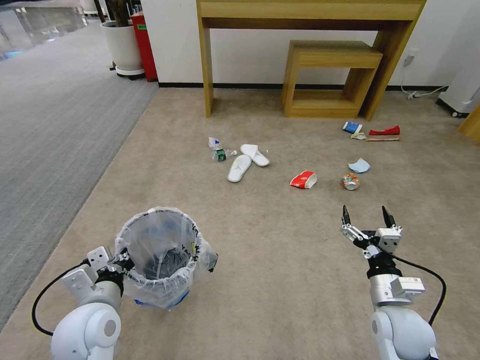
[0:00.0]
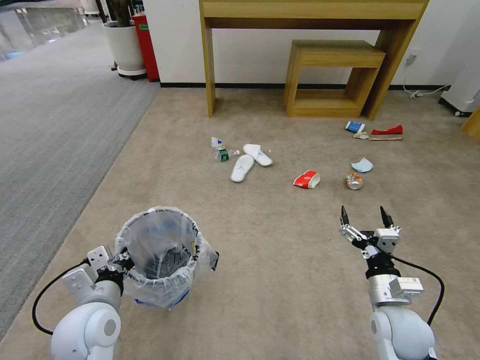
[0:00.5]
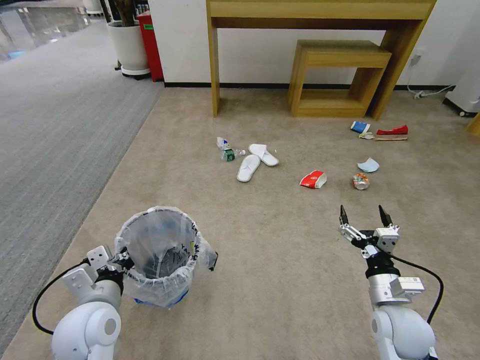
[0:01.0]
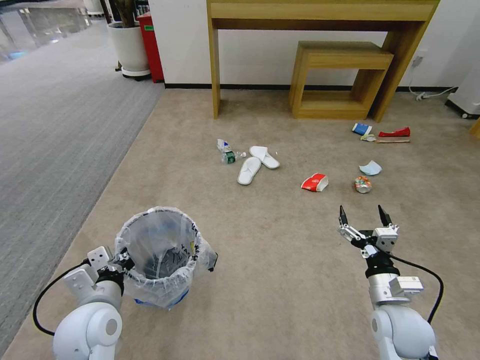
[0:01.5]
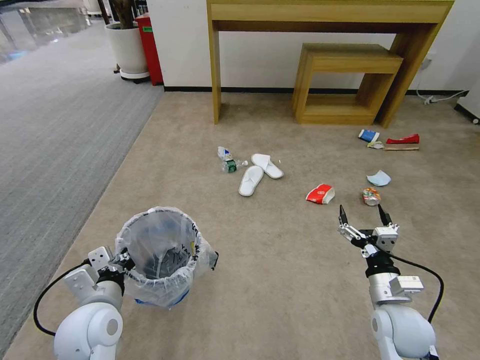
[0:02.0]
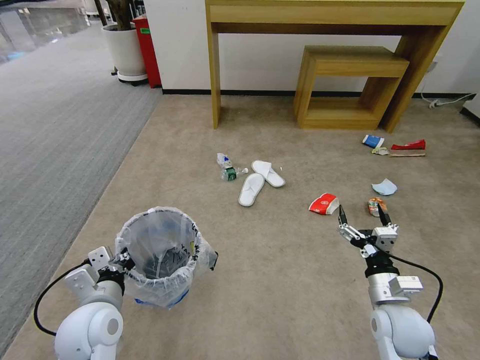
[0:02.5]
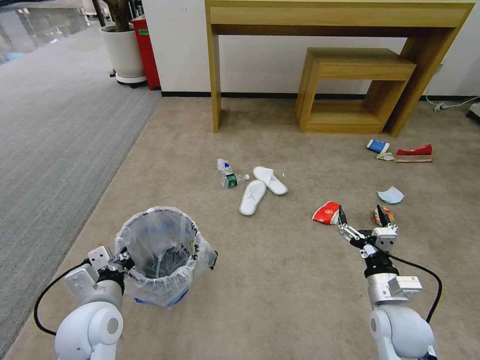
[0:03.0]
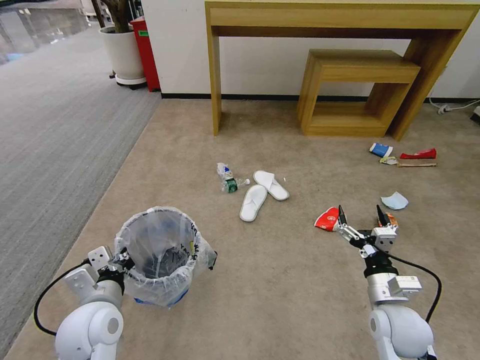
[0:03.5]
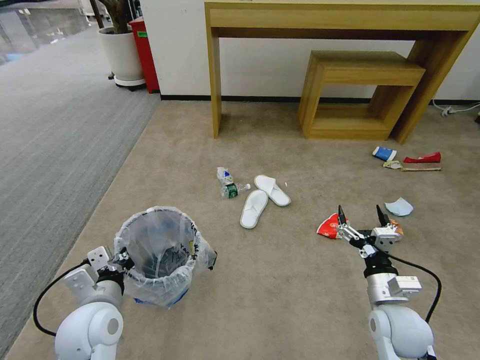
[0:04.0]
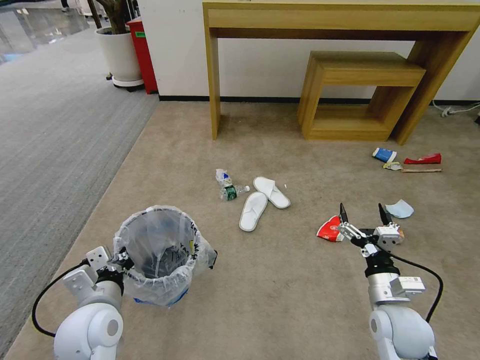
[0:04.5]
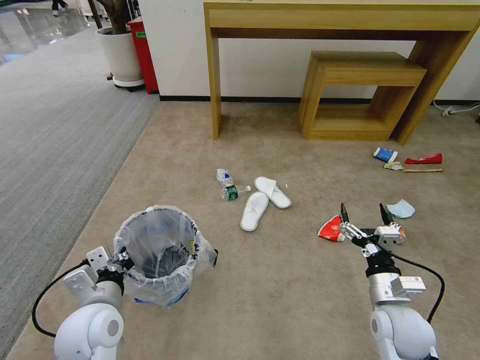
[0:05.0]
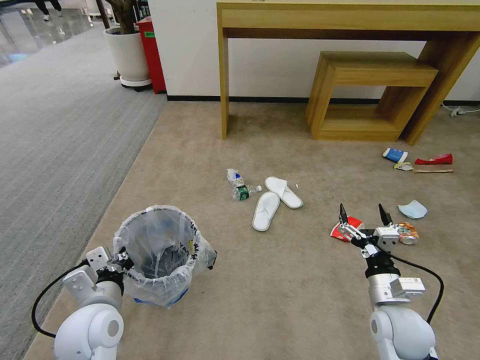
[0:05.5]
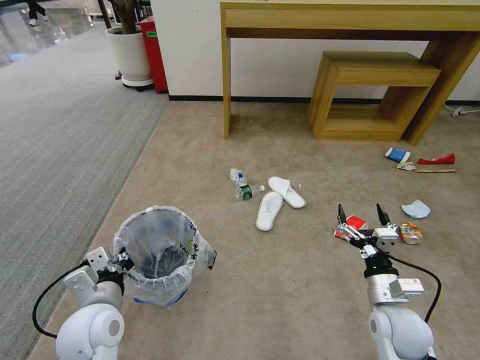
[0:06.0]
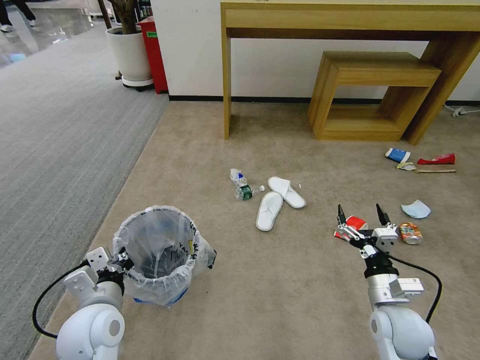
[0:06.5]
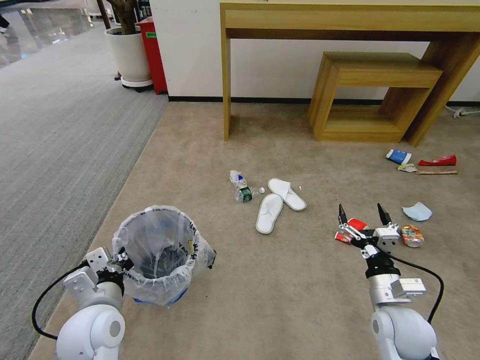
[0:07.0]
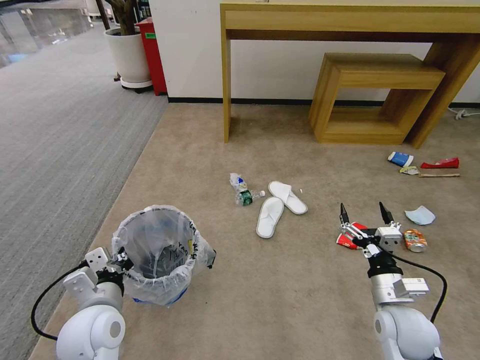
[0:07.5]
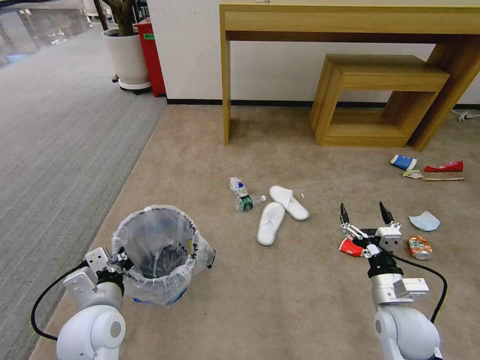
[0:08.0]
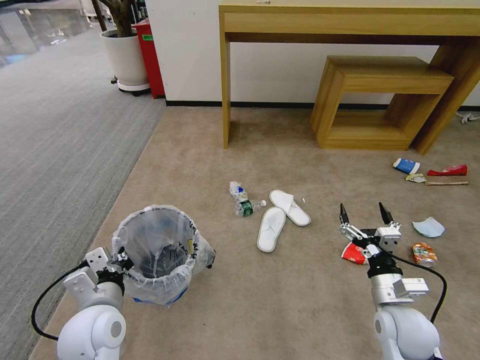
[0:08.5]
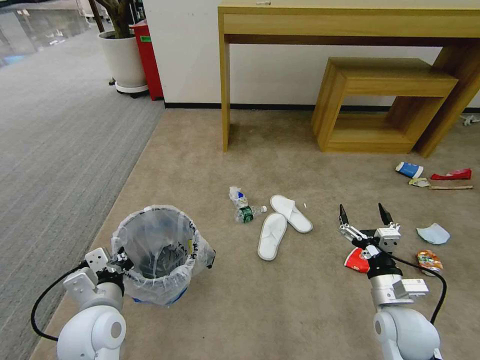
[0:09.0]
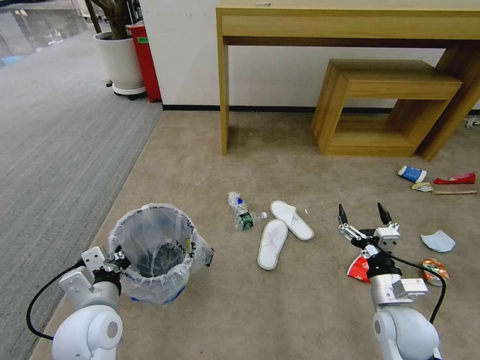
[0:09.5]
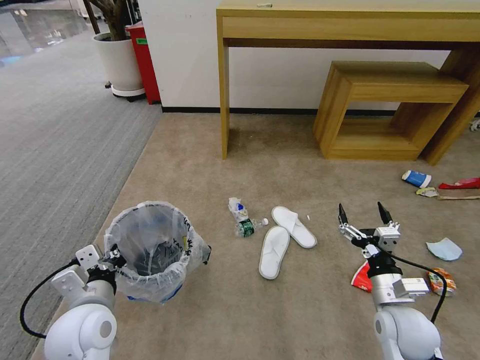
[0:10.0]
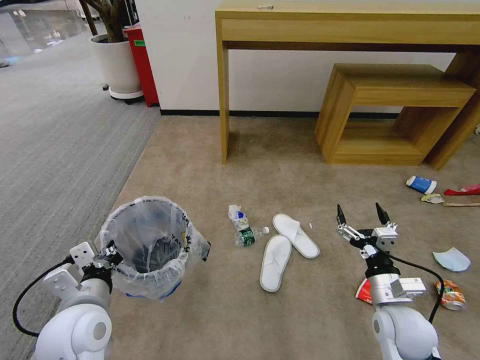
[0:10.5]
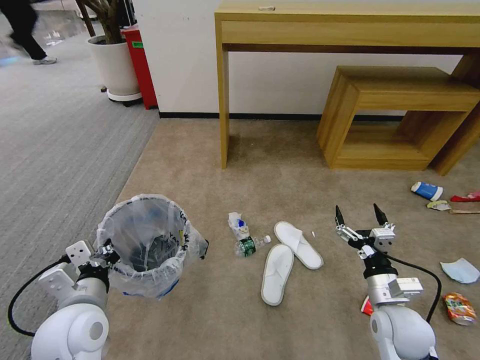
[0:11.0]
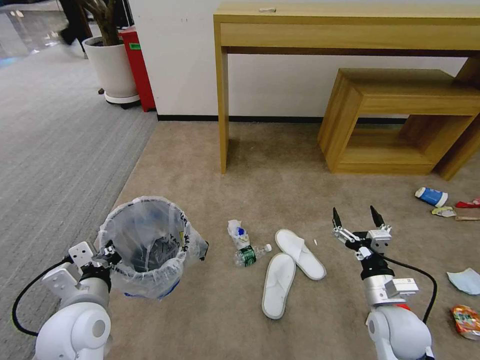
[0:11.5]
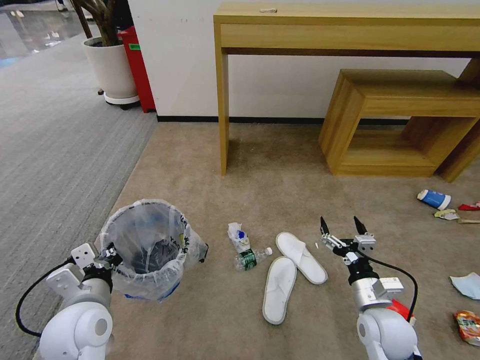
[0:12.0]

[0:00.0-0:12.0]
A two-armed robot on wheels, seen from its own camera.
Task of the whole recording: Pick up the trash bin and place the garbage on the floor into it.
0:00.0 to 0:08.0: Both grippers stay put.

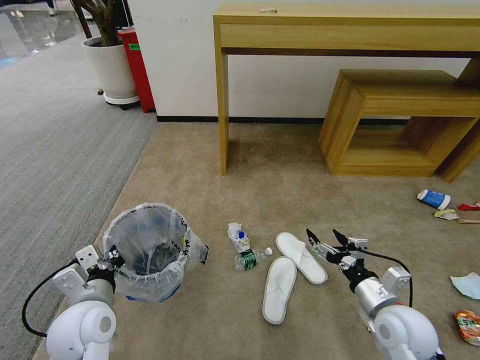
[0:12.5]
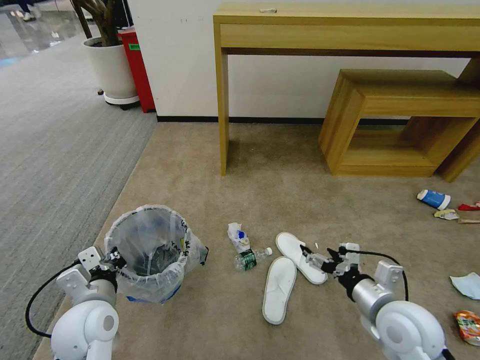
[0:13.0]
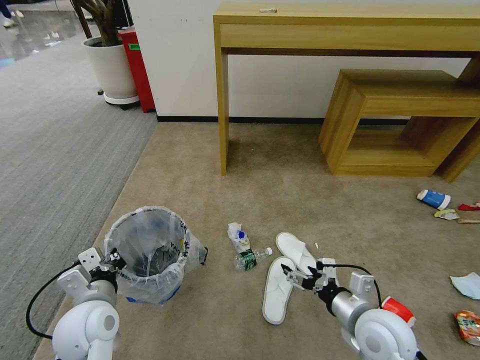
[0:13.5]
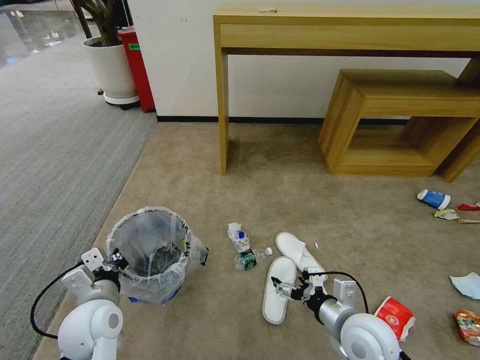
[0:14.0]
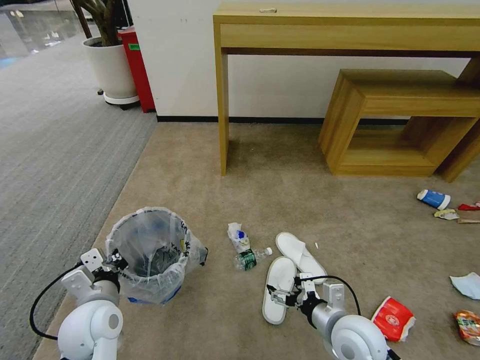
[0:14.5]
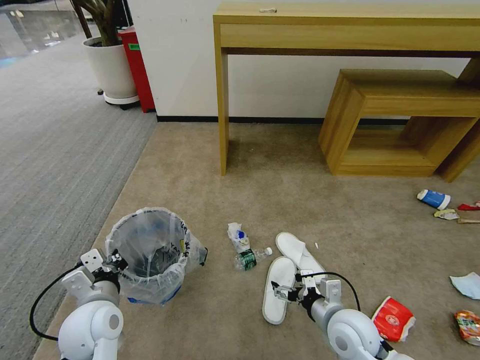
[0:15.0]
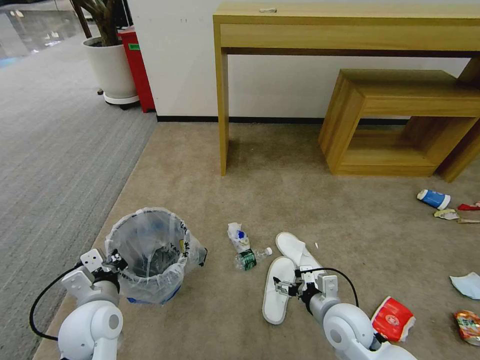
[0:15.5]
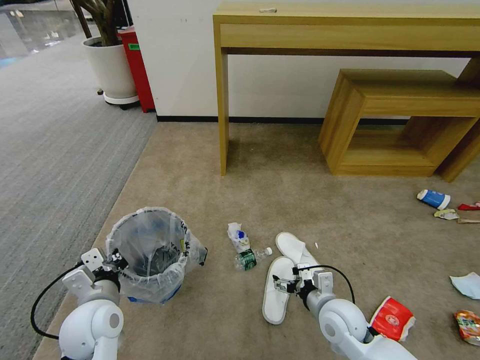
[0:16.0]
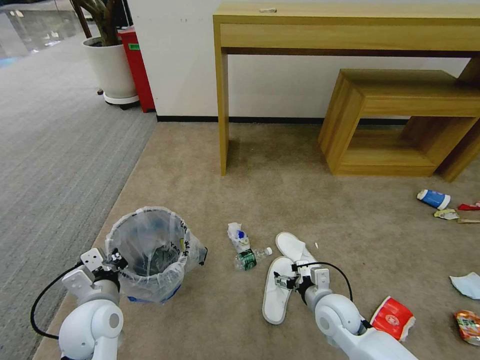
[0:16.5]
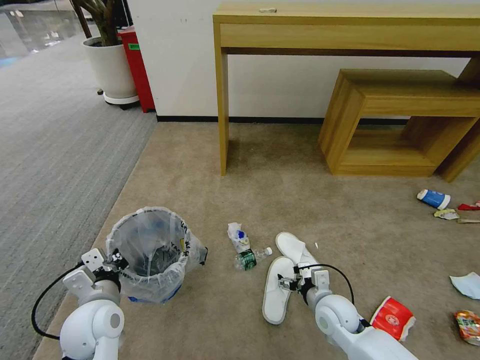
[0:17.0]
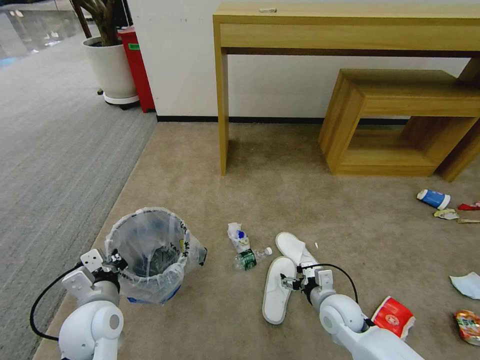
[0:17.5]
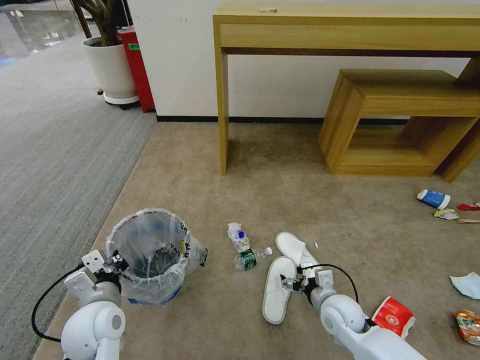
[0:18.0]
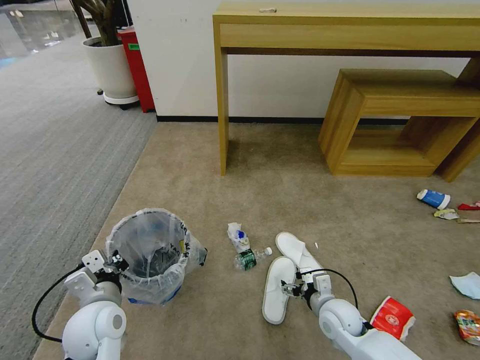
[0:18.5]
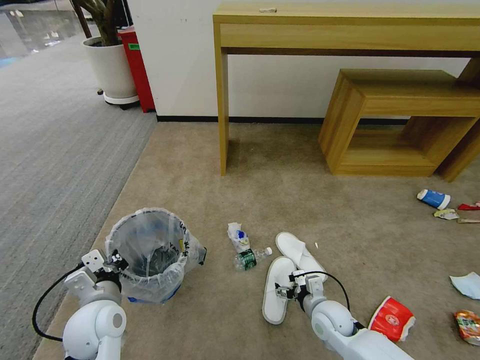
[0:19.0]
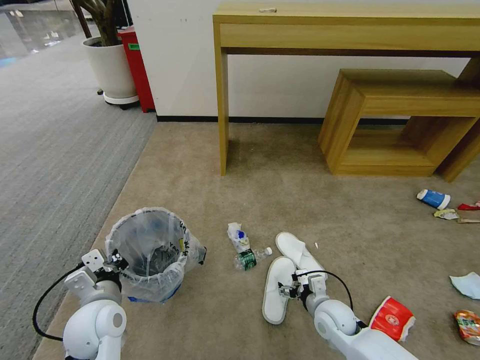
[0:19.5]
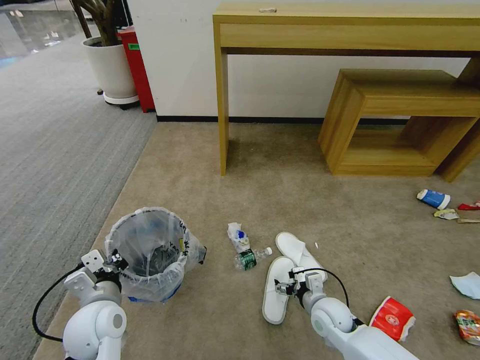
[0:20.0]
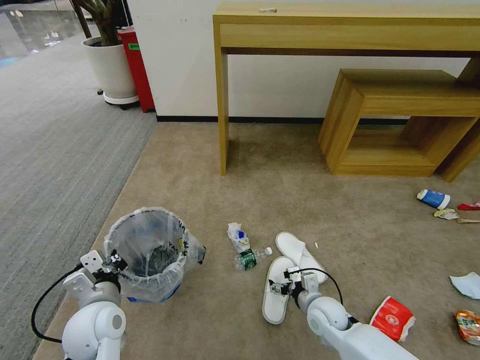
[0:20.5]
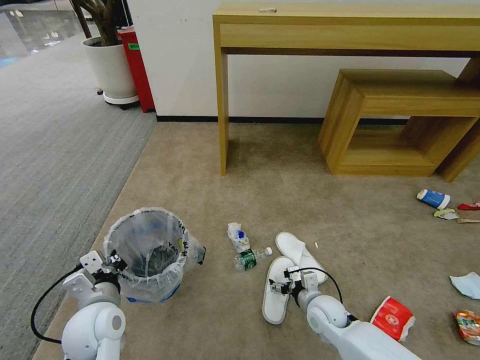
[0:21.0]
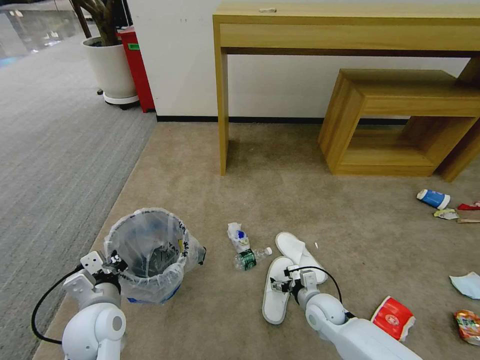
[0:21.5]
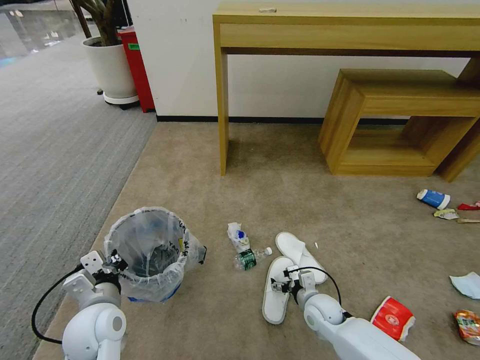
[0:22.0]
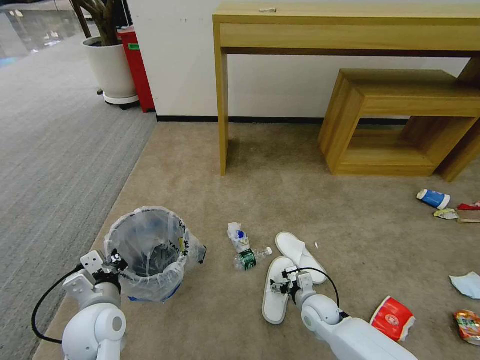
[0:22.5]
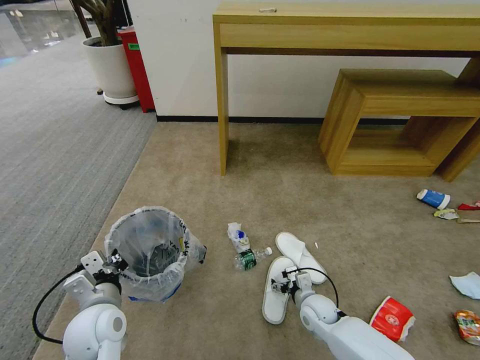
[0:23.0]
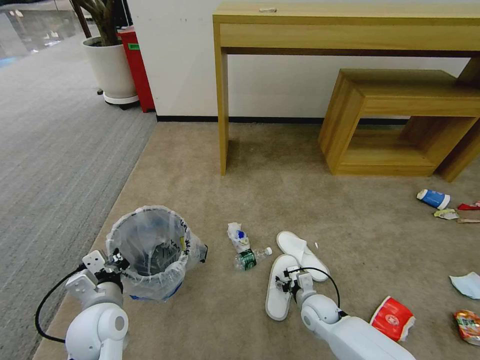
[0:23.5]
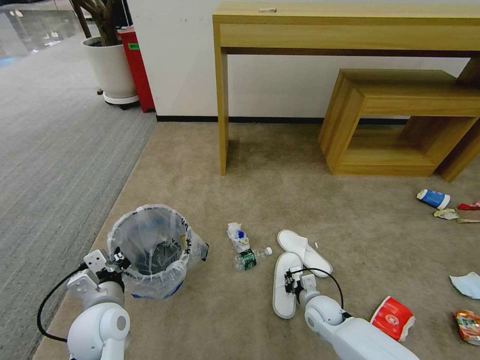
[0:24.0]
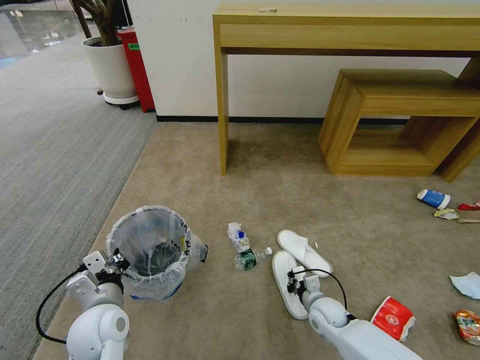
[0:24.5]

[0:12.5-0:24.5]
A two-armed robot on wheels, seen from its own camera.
Task of the whole recording: Pick up the trash bin and place the garbage on the floor into it.
0:12.5 to 0:14.5: The right gripper shifts approximately 10 cm to the left.
0:14.5 to 0:16.5: The right gripper is displaced forward and downward by roughly 10 cm.
0:16.5 to 0:18.5: There are only small adjustments of the grippers.
0:18.5 to 0:20.5: The grippers make only small movements.
0:20.5 to 0:22.5: The grippers make only small movements.
0:22.5 to 0:24.5: The right gripper closes.

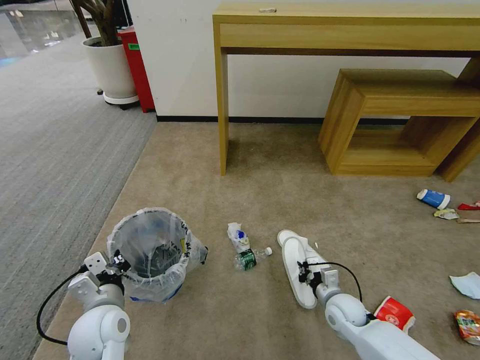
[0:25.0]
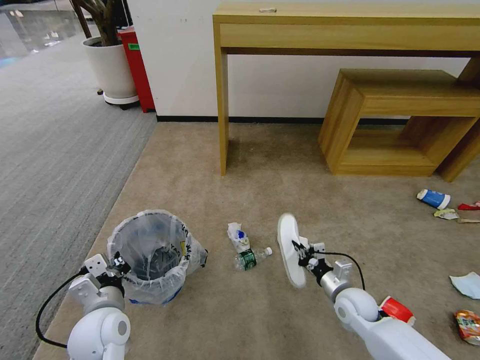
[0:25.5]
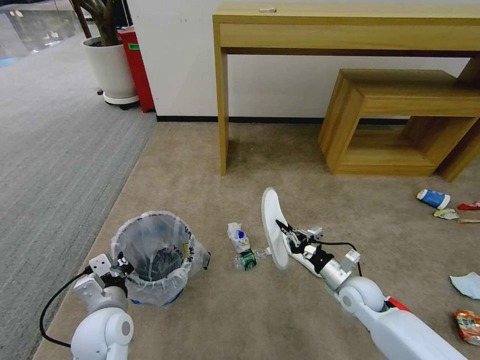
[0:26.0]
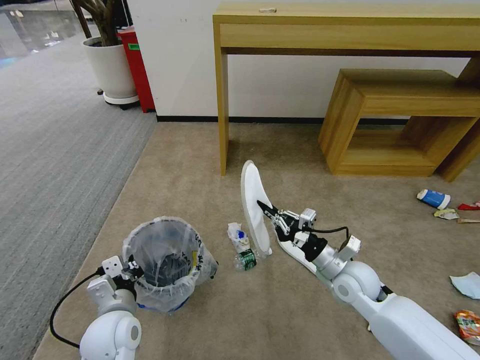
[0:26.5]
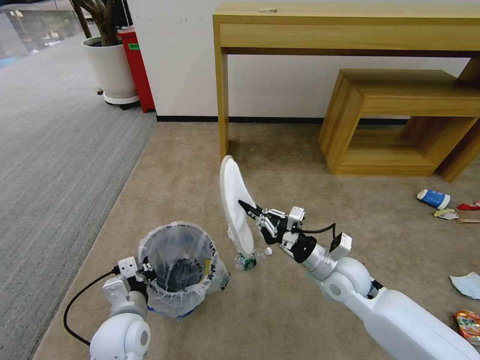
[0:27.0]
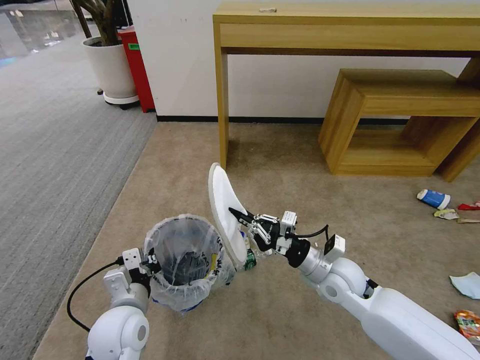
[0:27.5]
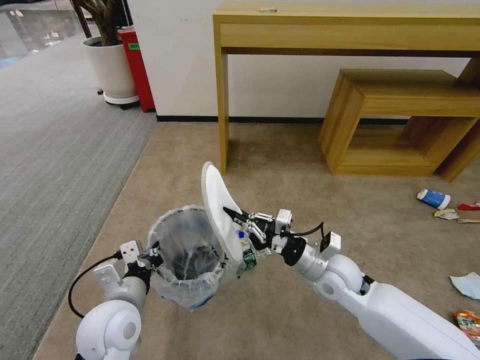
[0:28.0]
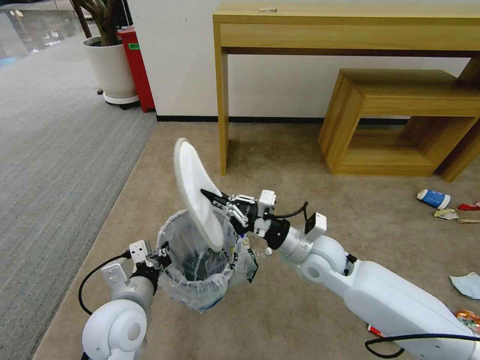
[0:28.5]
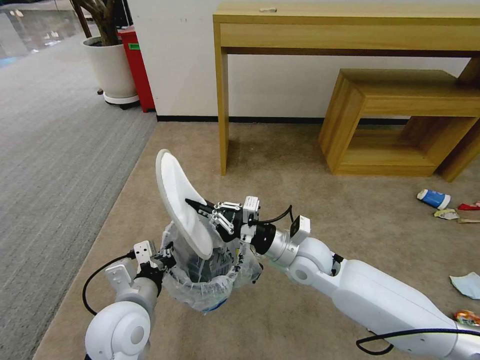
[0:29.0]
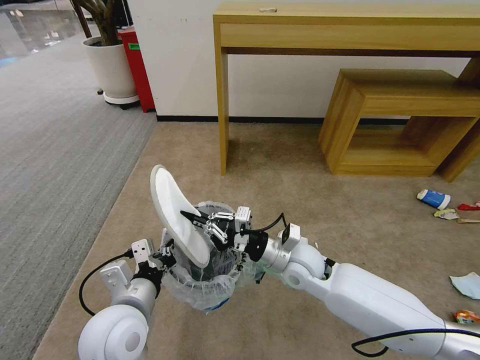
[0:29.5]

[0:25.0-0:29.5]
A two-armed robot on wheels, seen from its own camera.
Task of the whole recording: Pick up the trash bin and place the garbage on the floor into it.
0:25.0 to 0:27.0: The right gripper shifts approximately 15 cm upward.
0:27.0 to 0:29.5: The left gripper heads upward, covering approximately 10 cm; the right gripper is displaced to the left by approximately 10 cm.
